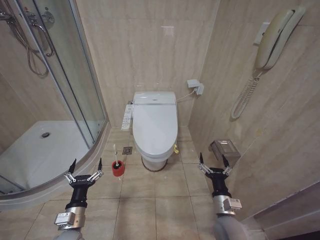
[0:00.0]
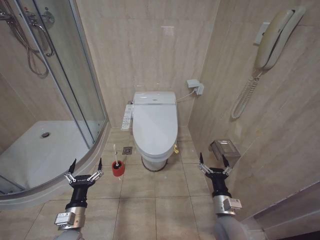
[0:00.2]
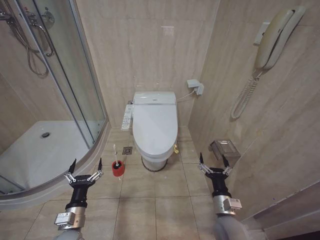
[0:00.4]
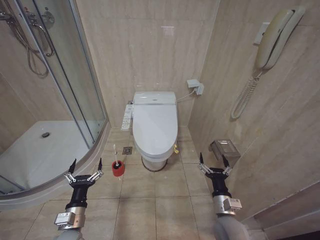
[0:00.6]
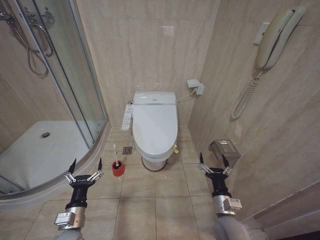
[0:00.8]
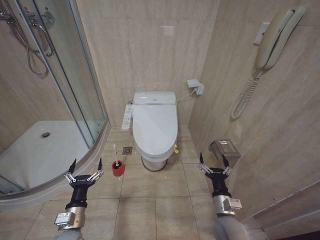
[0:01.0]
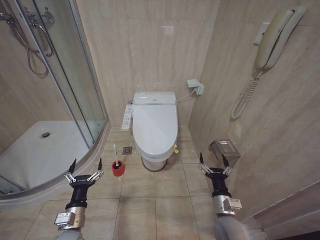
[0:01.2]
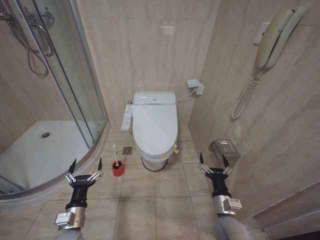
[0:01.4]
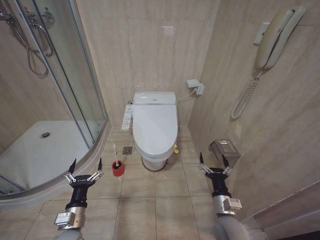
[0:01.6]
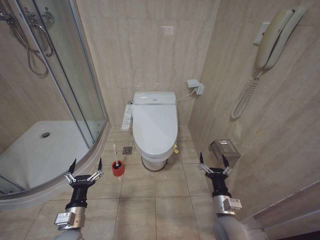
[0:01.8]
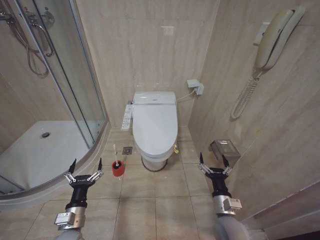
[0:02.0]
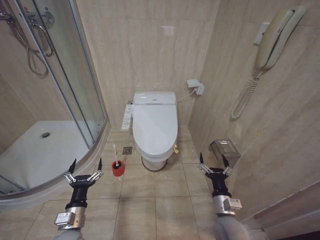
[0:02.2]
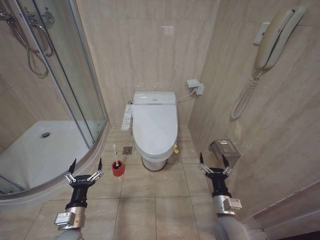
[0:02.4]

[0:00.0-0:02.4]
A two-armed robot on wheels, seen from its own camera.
Task of the whole recording: Open the toilet lid, clean the toilet bowl with a toilet brush, close the toilet lid, and flush.
0:00.0 to 0:02.4: Both grippers stay about where they are.
